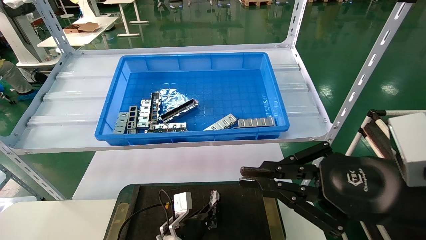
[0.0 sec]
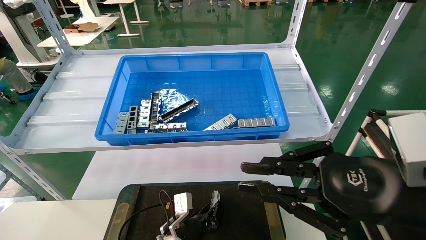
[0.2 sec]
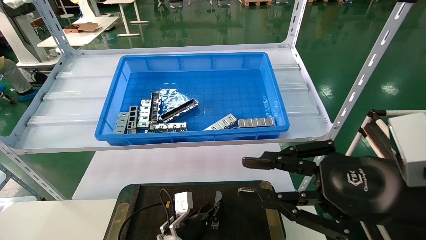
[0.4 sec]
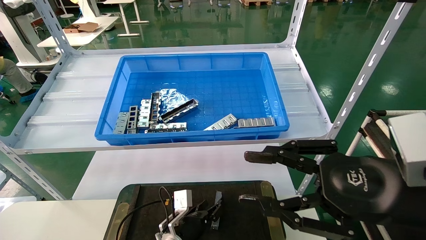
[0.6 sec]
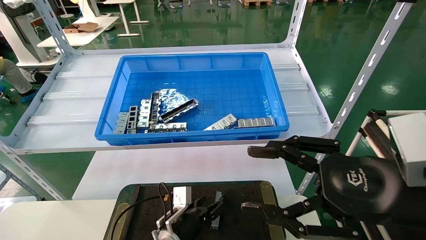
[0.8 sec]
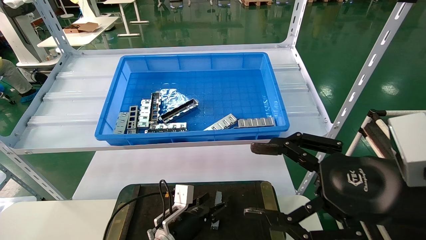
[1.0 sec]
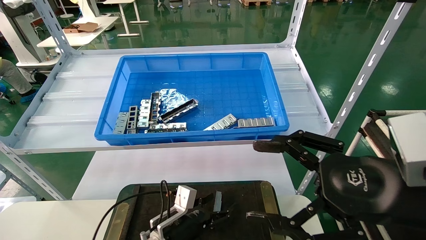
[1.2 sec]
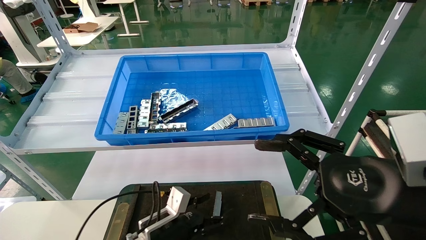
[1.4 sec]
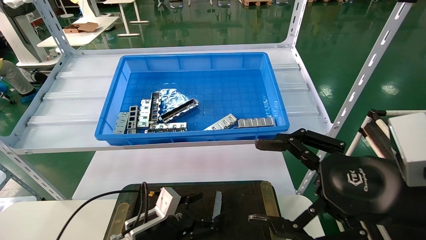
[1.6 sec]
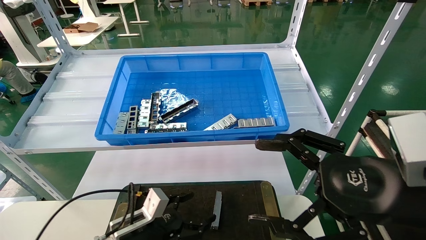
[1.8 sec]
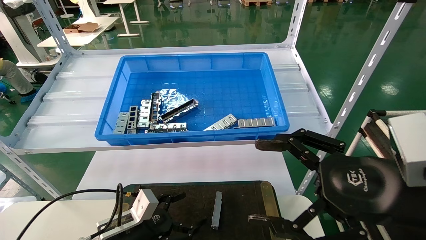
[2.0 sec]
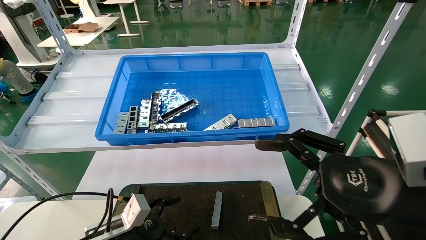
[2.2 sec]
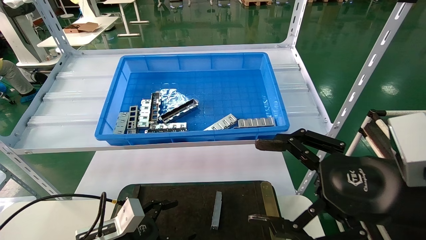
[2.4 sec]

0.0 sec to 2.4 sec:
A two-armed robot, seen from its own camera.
Task of the whole recording: Grasp the part with one hand and place it on the black container.
0.0 sec to 1.2 sec: The left gripper moves about 5 cm, and opens up, while the right gripper opens its fingers.
1.2 sec to 2.4 sec: The left gripper travels to the left, backward and upward by some 15 cm.
